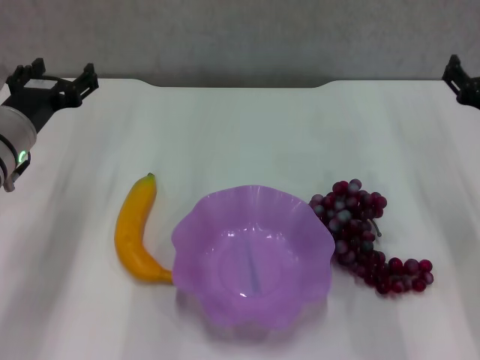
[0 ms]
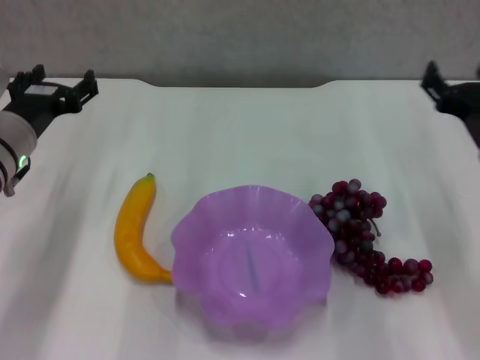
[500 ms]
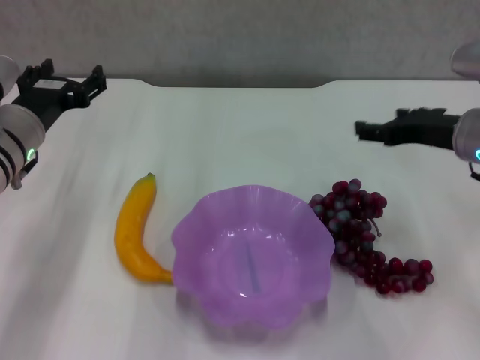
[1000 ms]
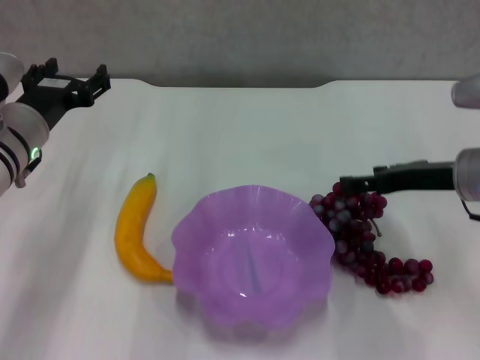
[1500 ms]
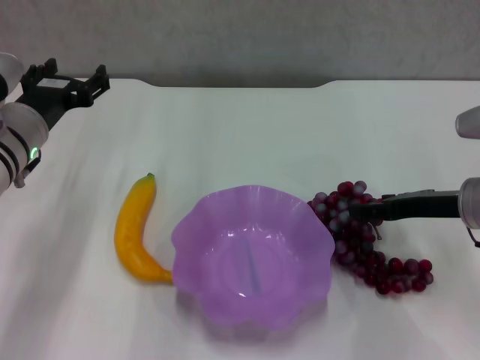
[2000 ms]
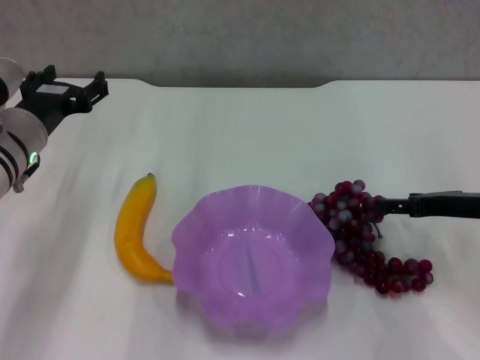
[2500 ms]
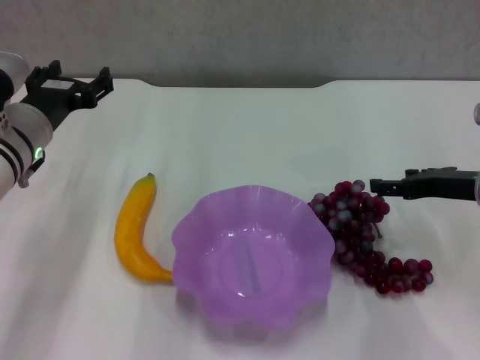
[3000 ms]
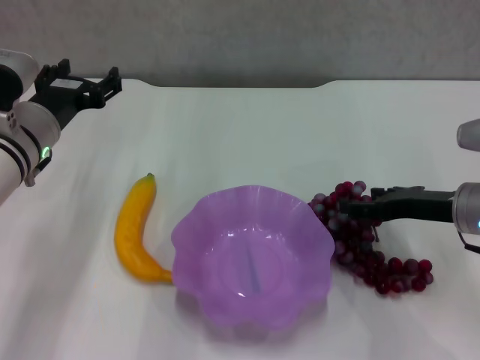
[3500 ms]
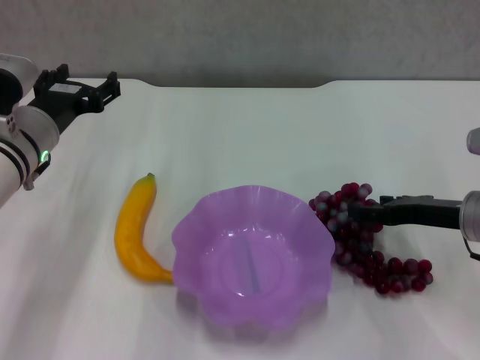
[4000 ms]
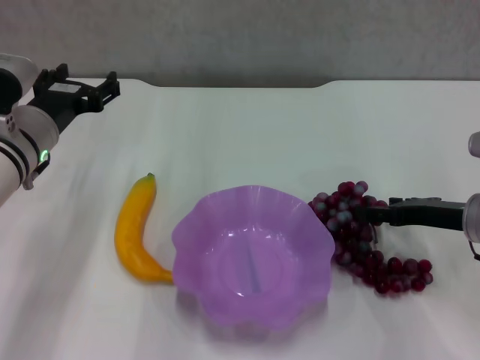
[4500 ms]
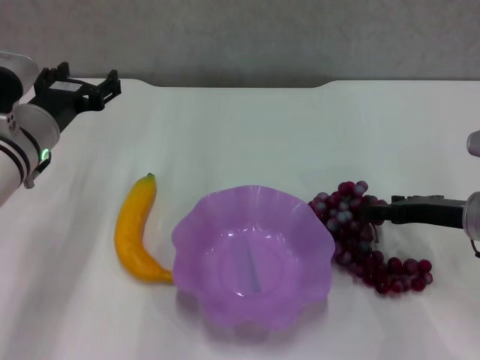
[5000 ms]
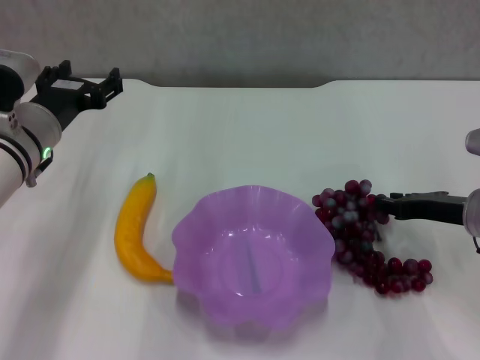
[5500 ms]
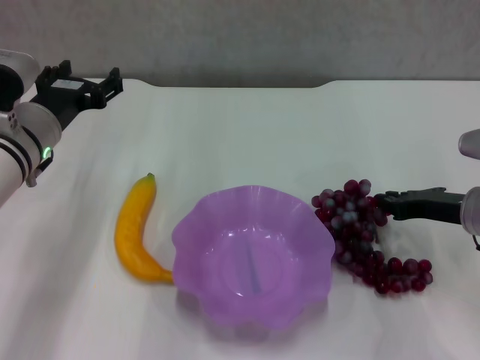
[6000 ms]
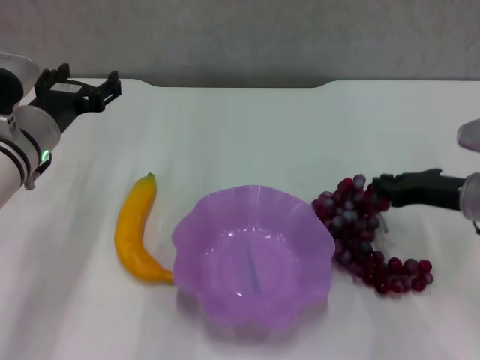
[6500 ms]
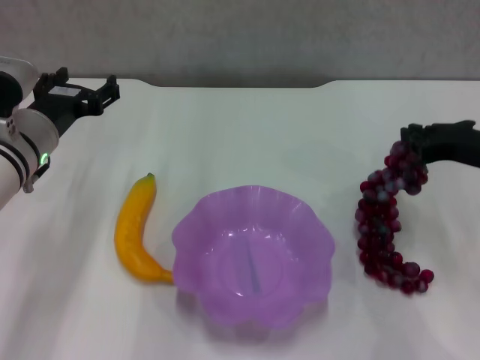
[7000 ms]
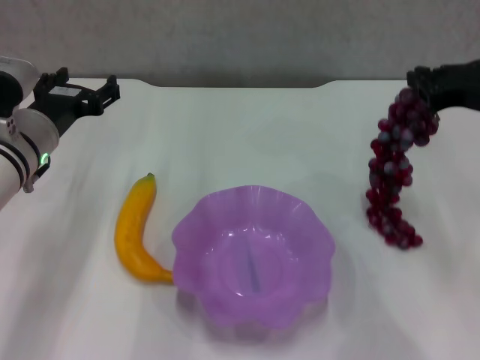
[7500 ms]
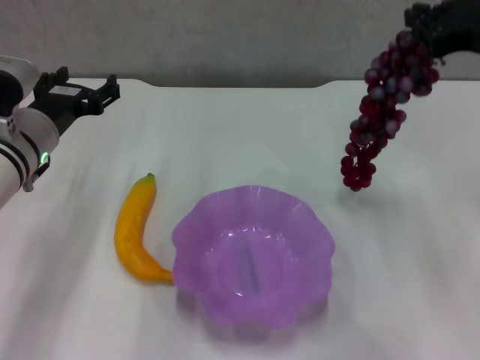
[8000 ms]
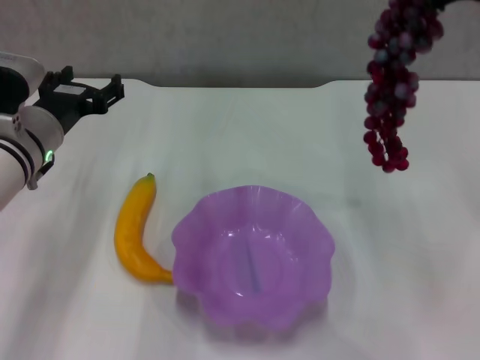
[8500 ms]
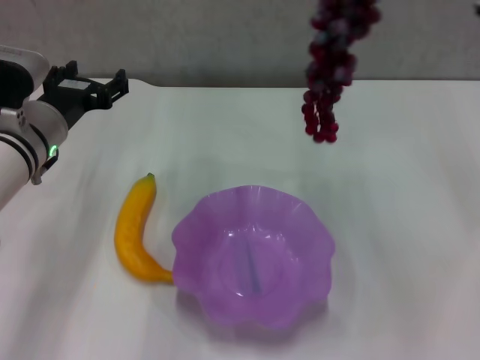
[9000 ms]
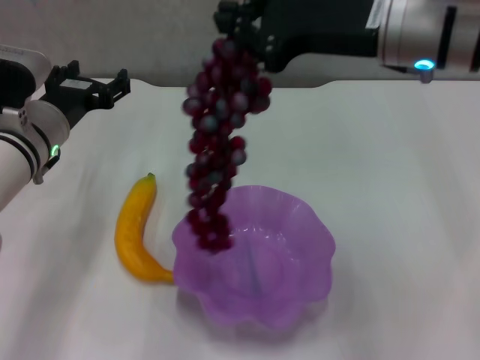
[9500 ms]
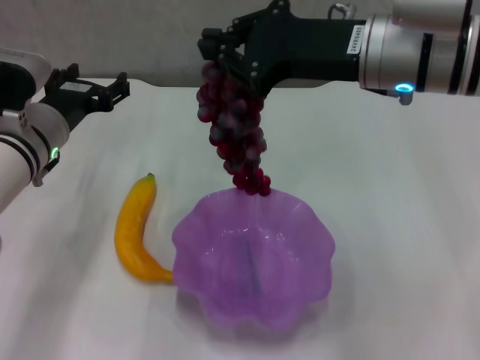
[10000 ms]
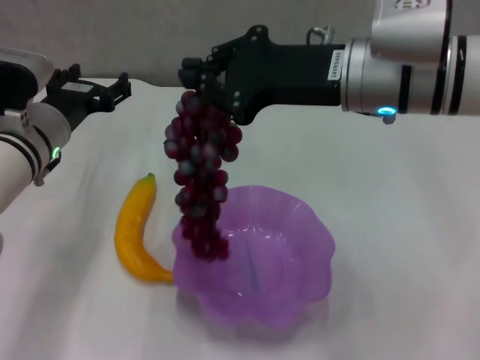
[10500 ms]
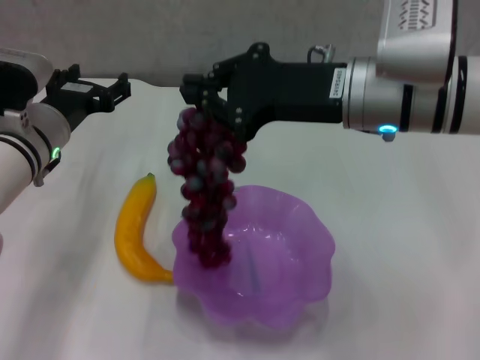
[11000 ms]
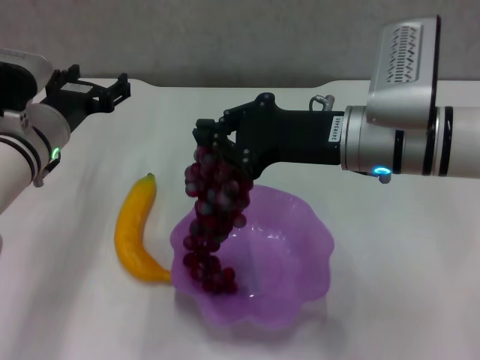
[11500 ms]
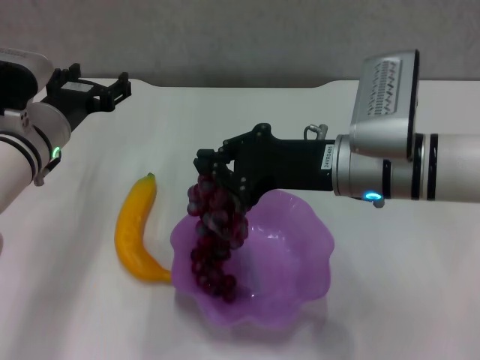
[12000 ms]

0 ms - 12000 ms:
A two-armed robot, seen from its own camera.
Step, 0 ms - 5500 ms: Grasp the grape with right gripper.
2000 ms - 4000 ms: The grippers stay close to where they were, moving slightly.
4000 ms - 6000 ms: The right gripper closes up.
6000 ms - 8000 ms: The right gripper moves upward, some 20 cm.
8000 ms - 10000 ms: The right gripper goes about 15 cm to the left.
10000 ms - 12000 ms: The right gripper goes approximately 10 cm downward.

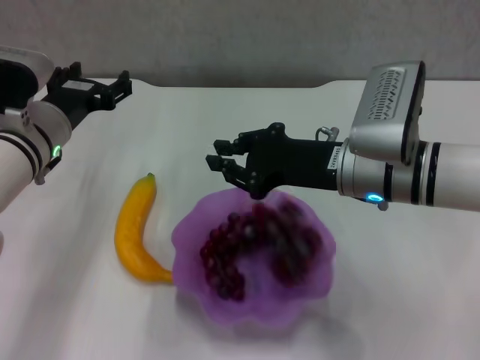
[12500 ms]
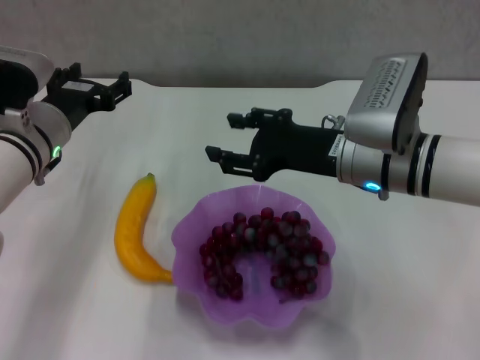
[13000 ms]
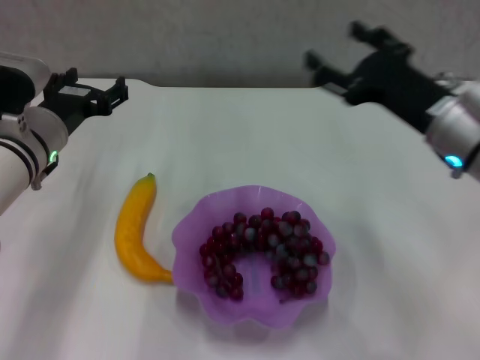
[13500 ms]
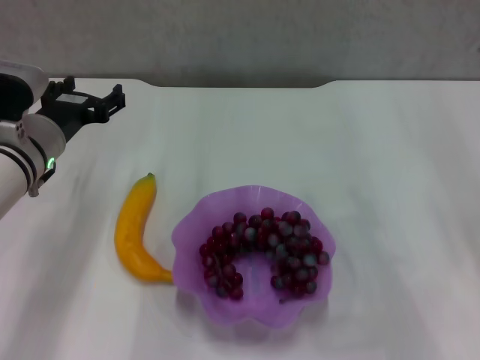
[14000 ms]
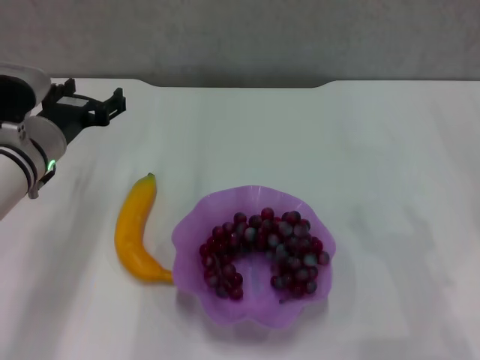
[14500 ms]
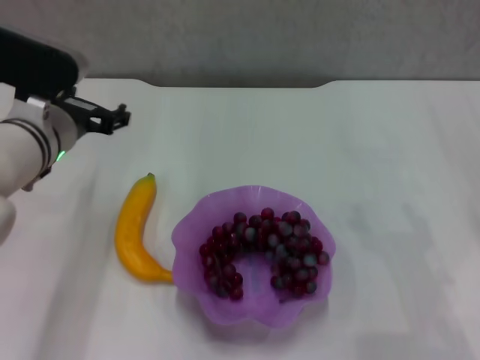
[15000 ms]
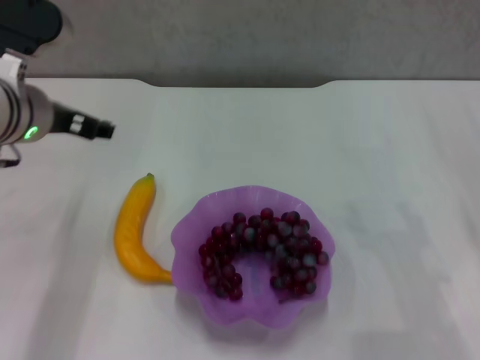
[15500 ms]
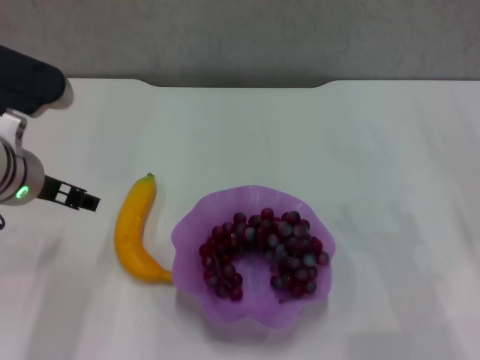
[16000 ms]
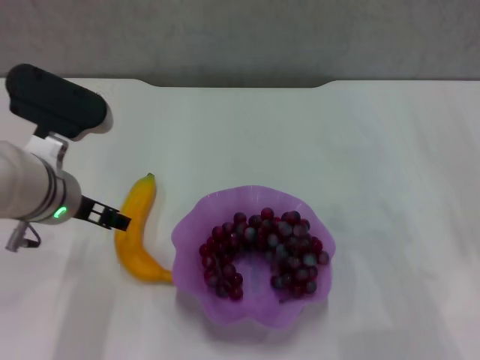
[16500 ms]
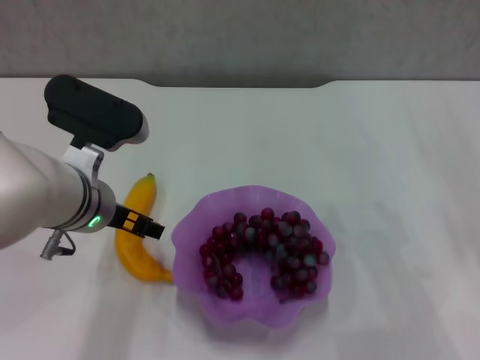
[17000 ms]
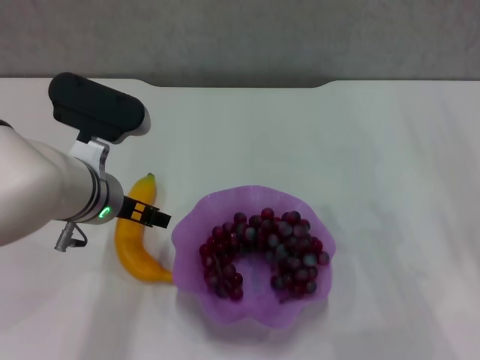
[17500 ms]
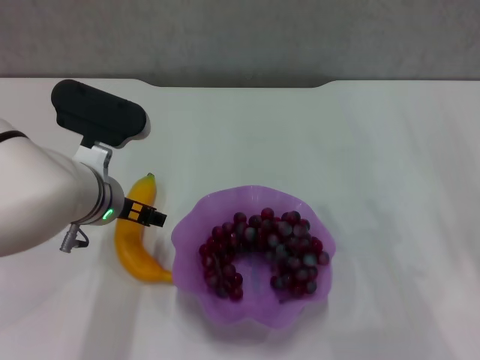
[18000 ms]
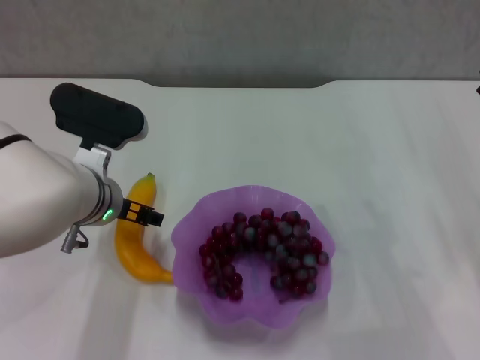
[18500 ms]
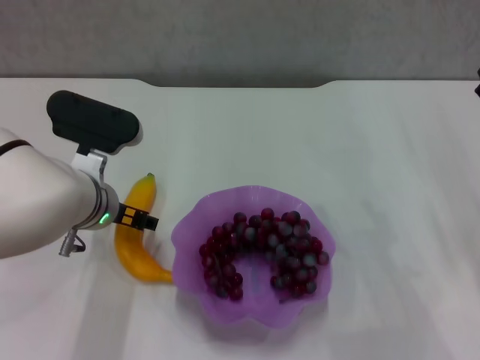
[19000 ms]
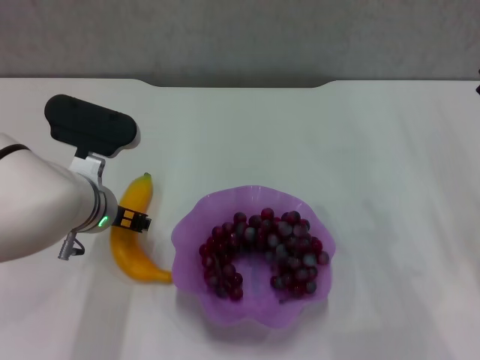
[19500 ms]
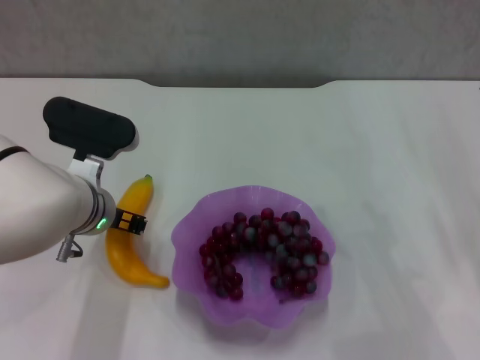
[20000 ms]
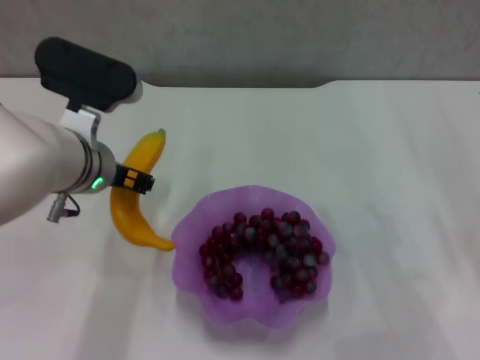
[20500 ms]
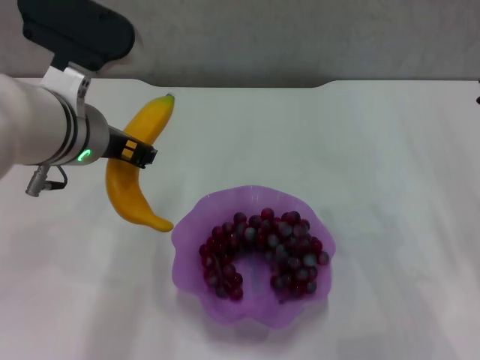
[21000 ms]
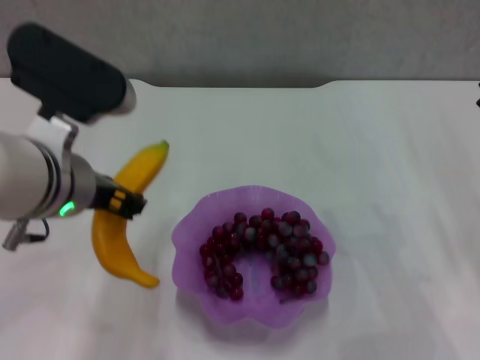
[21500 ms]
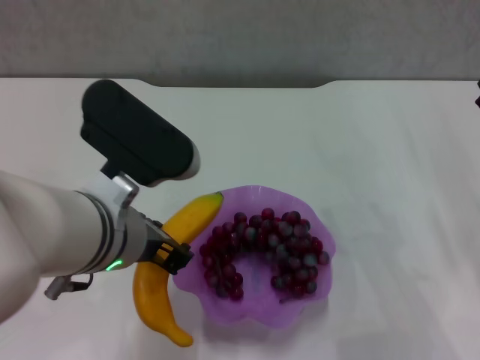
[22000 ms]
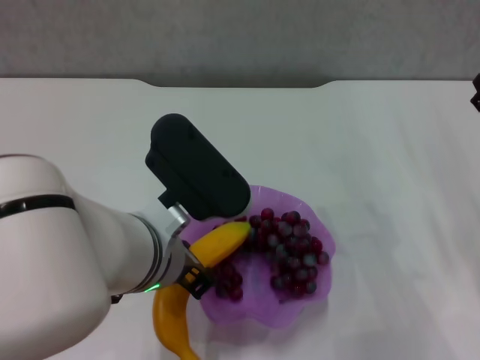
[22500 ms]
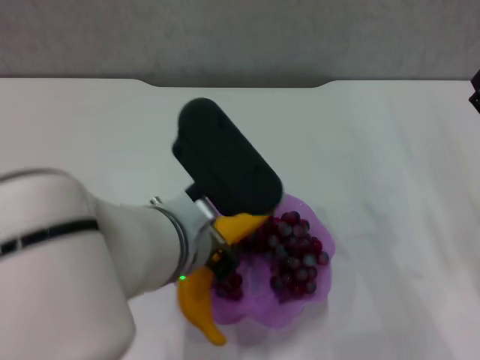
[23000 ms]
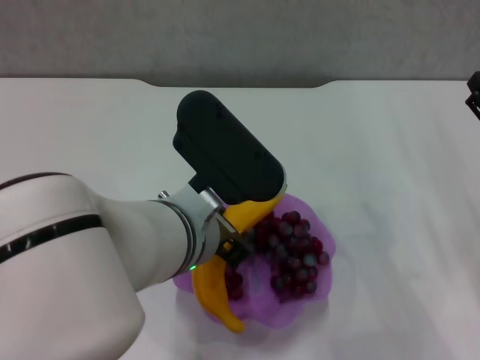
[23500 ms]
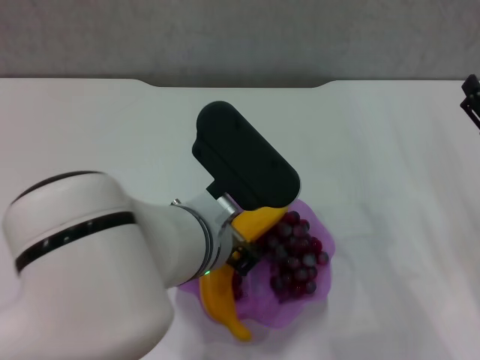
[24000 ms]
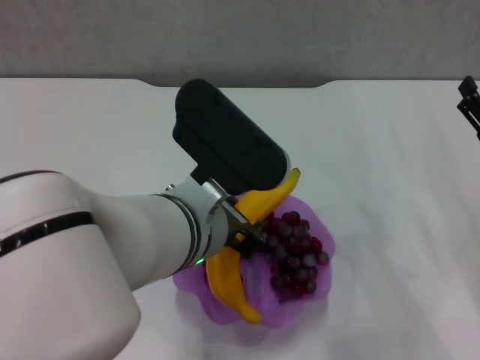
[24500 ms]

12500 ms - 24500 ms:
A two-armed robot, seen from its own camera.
Step, 13000 ms - 19500 ms: Grasp the banana with left gripper.
12500 ms - 14500 ms: The right gripper is displaced to the right by some 20 cm, and opens.
14500 ms - 16500 ms: The left gripper is displaced backward by approximately 5 cm.
16500 ms - 18500 ms: The left gripper changes place by some 5 cm.
18500 ms - 20500 ms: The left gripper travels upward by about 5 cm, and closes up.
20500 ms - 22500 ms: The left gripper travels backward and to the right by some 10 cm.
22500 ms - 24500 ms: The grippers move only a little.

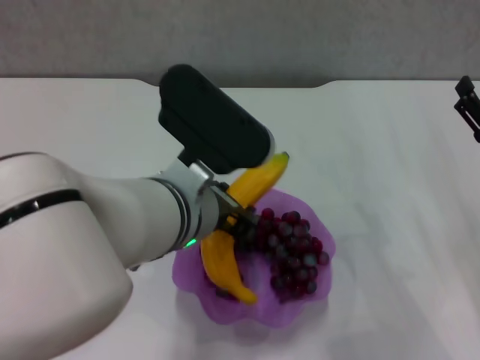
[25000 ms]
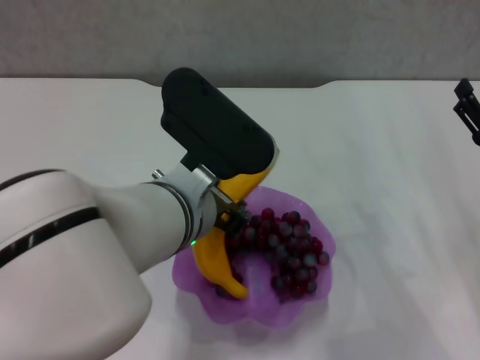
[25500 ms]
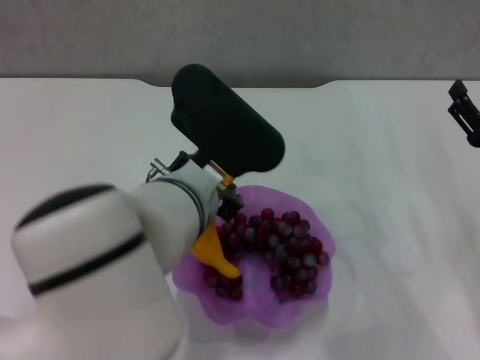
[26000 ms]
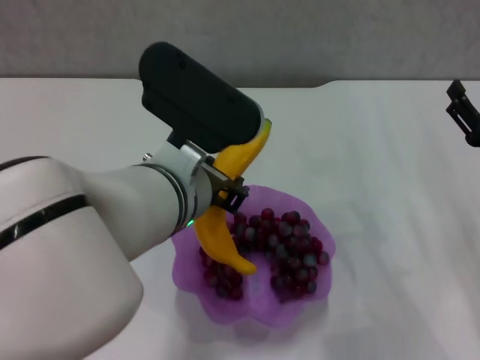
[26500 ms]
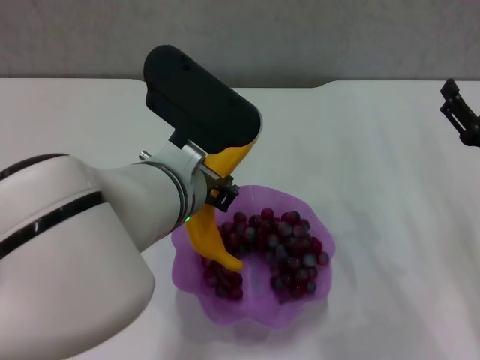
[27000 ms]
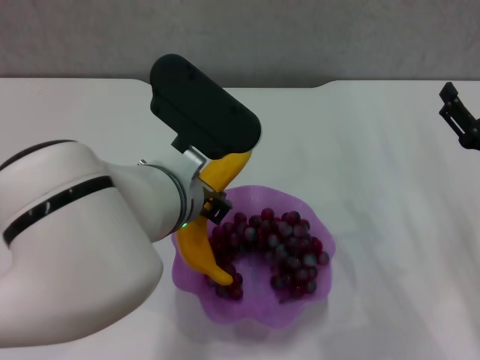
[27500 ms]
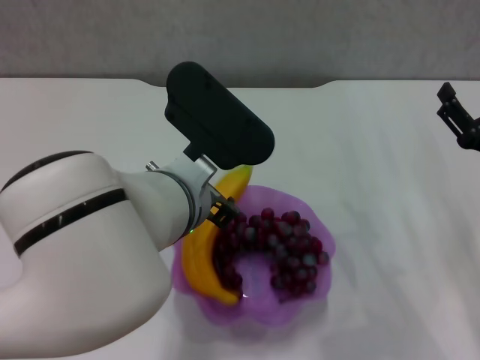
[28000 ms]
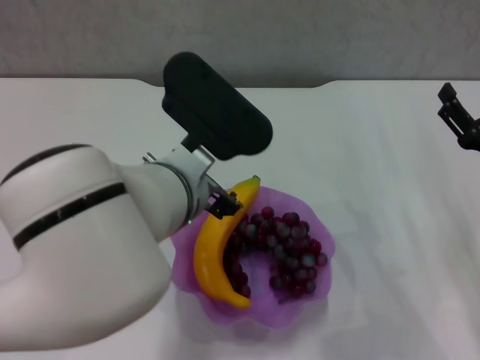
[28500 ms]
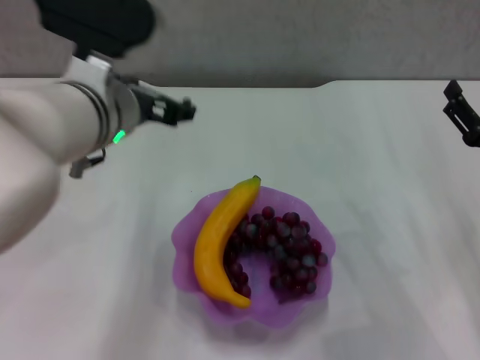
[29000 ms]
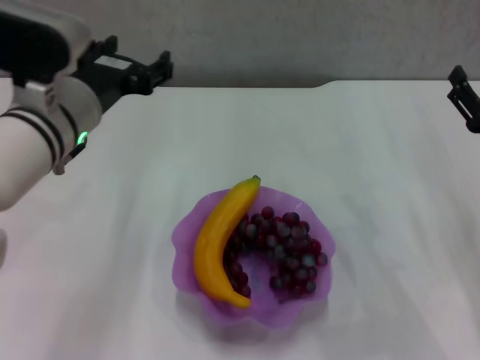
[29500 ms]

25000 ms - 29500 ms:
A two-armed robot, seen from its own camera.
Step, 25000 ms - 28500 ms: Place the banana in the purple plate with left gripper.
25000 ms - 27000 ms: There are only small adjustments of the grippers.
27000 ms - 29500 ms: The left gripper heads to the left and forward, covering about 15 cm, and opens.
